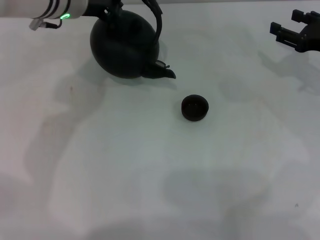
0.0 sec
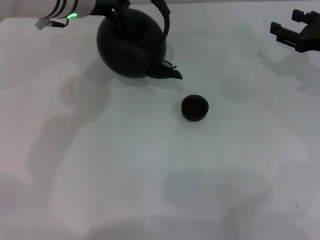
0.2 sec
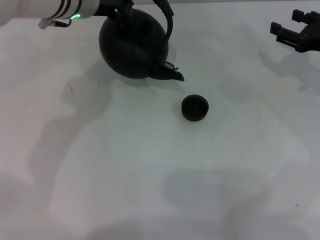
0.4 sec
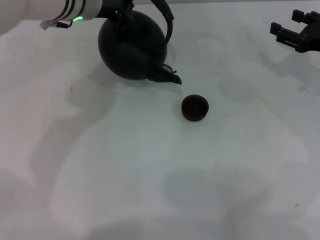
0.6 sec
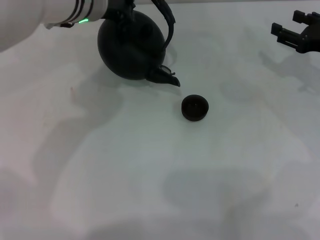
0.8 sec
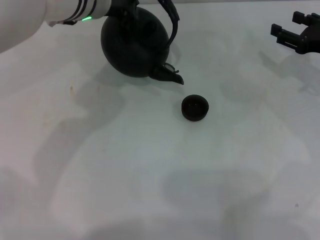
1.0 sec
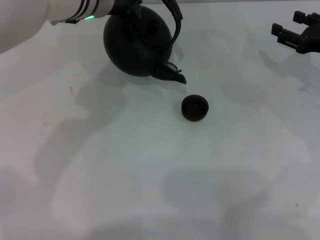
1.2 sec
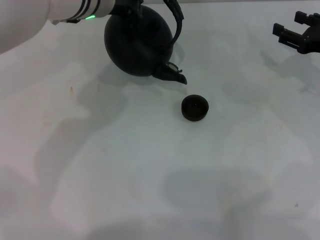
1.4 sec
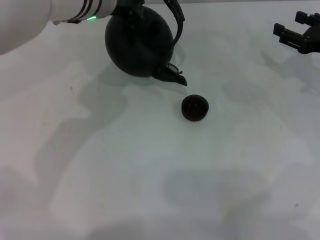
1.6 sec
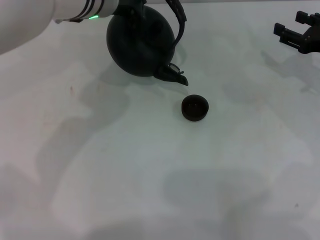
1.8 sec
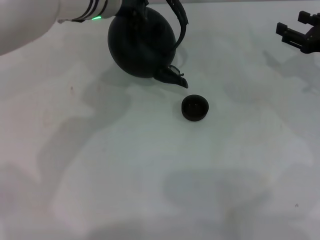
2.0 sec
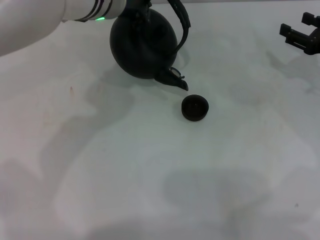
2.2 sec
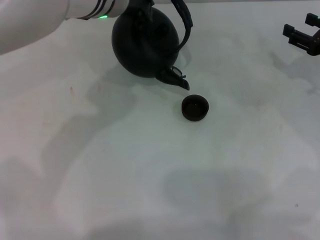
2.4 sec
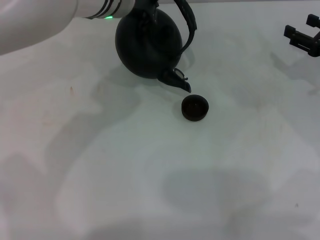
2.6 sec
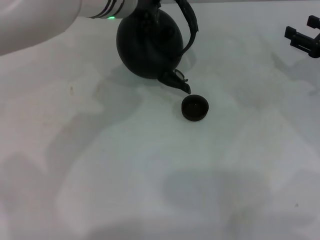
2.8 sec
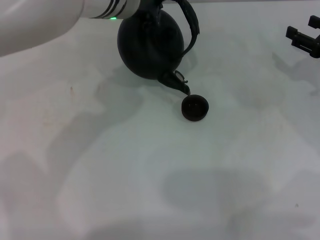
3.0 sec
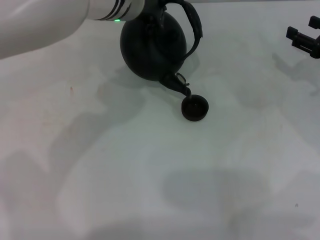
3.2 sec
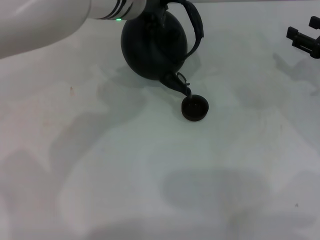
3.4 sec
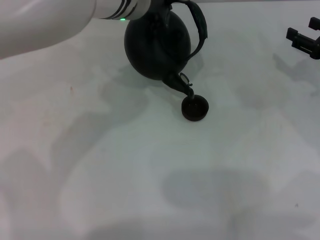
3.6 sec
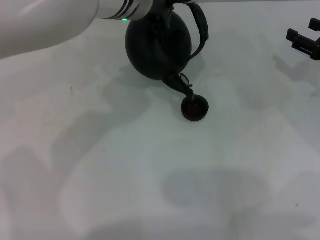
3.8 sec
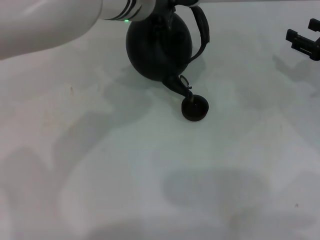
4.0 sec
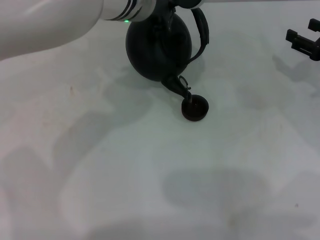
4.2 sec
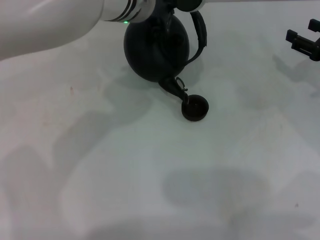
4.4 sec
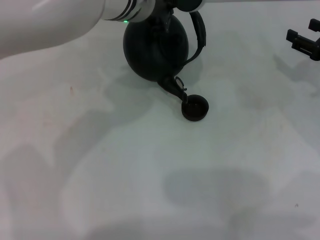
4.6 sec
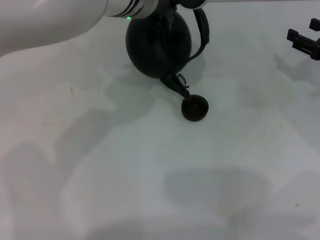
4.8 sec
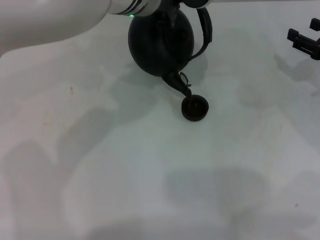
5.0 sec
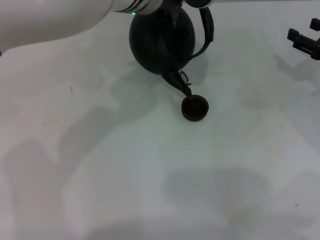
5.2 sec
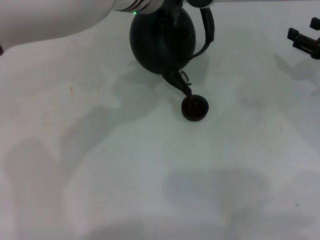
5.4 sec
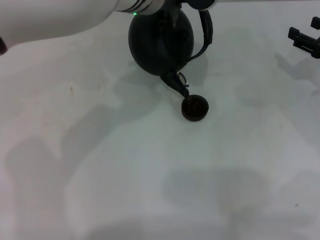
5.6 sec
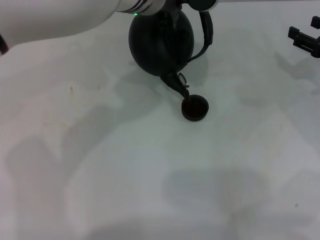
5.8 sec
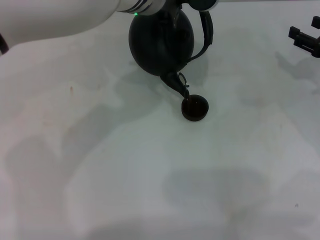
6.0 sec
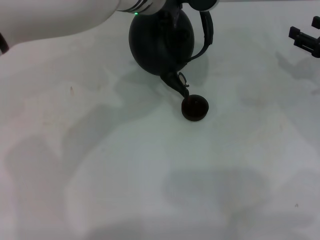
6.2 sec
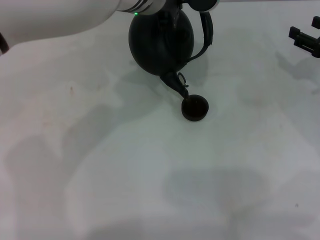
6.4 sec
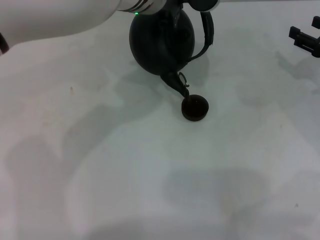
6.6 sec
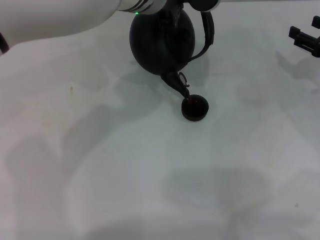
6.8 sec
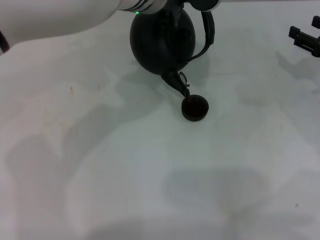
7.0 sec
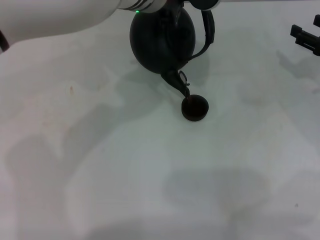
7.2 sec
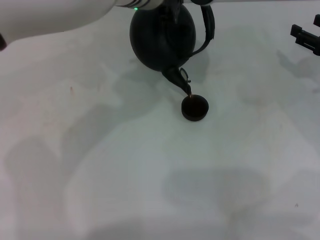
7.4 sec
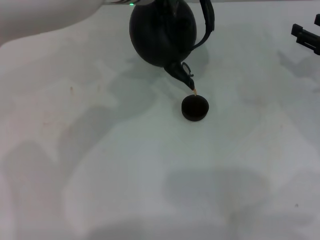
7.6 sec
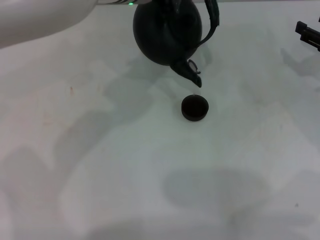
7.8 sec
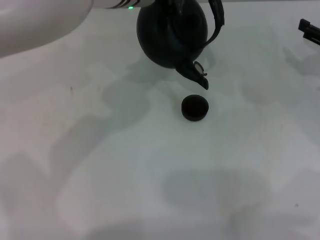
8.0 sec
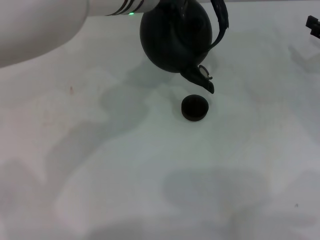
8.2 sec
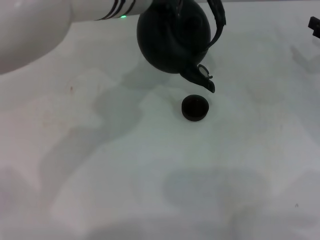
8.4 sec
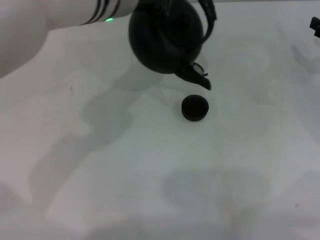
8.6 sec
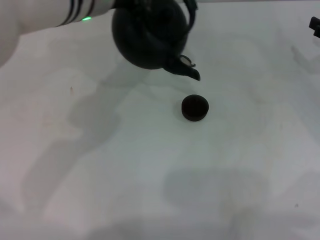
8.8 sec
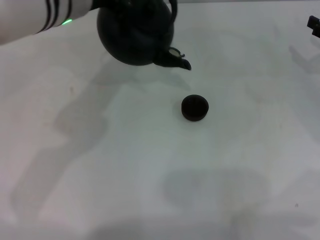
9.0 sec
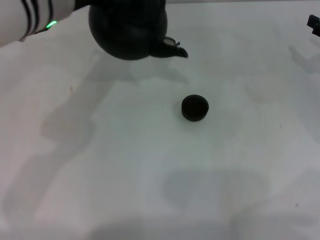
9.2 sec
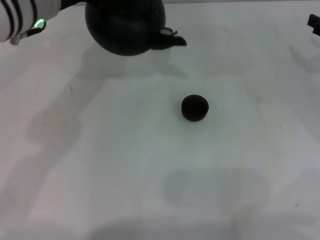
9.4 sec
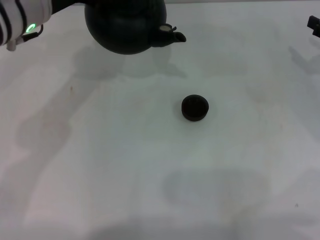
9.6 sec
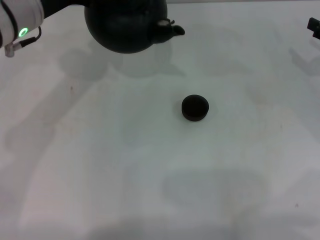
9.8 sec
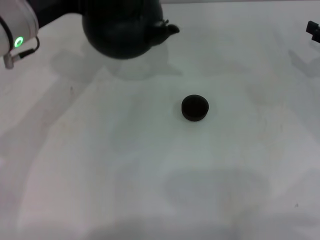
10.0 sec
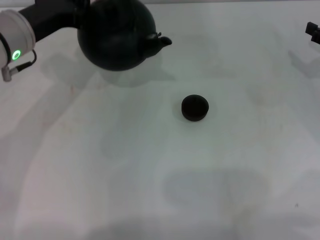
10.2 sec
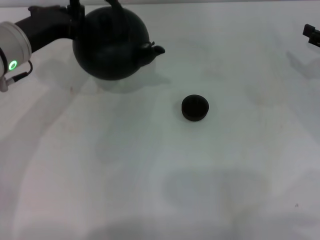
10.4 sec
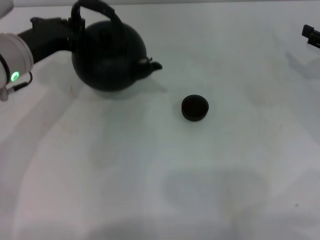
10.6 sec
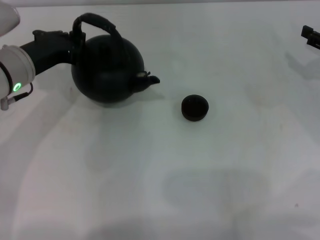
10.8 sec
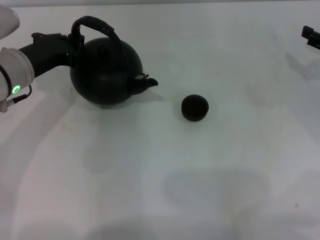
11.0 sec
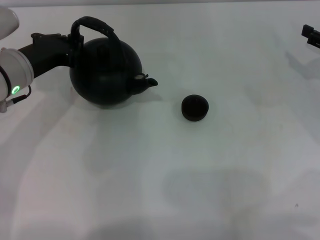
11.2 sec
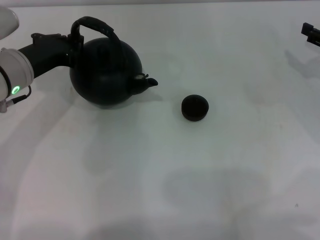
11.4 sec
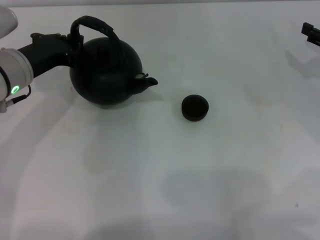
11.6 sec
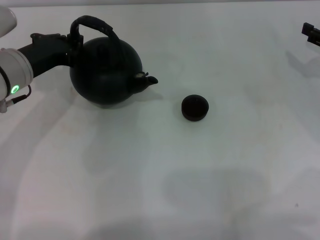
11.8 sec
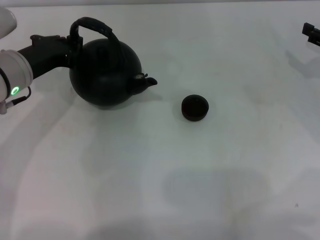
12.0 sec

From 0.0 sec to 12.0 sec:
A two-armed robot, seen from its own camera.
Task of the whole recording: Grasp the handle of the teapot with one hand and pour tea into the teacup.
Step, from 0.0 sec to 8.2 sec: Pour tea into the teacup with the left gripper.
From 0.0 sec to 1.6 sec: There are only small adjustments of the grippers.
From 1.6 sec to 3.0 sec: The grippers stay close to where they were, moving slightly.
From 3.0 sec to 7.6 sec: There are only small adjustments of the grippers.
From 7.6 sec to 9.0 sec: The left gripper shifts approximately 10 cm to the left.
From 9.0 sec to 10.4 sec: The left gripper heads to the left and downward, covering roughly 10 cm.
From 10.4 sec to 12.0 sec: The grippers move only a little.

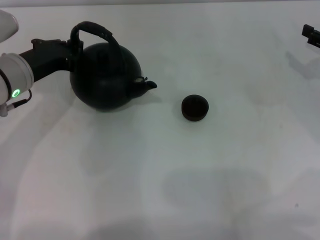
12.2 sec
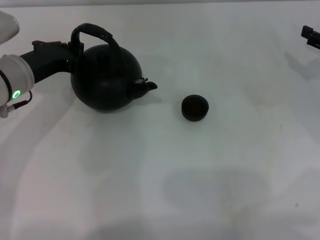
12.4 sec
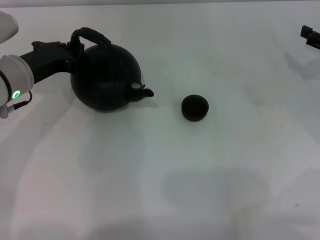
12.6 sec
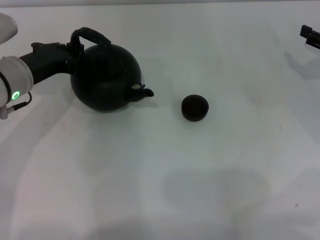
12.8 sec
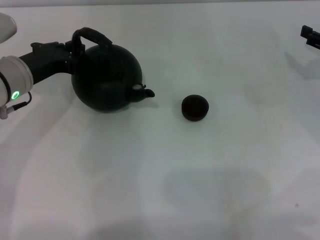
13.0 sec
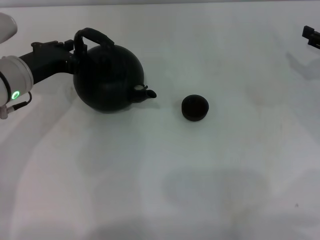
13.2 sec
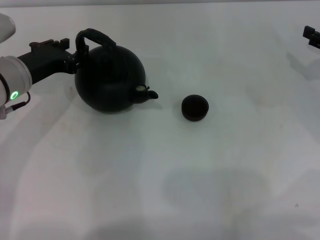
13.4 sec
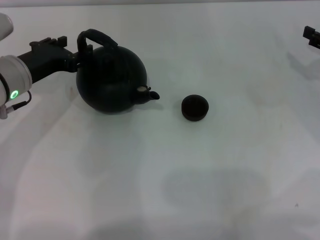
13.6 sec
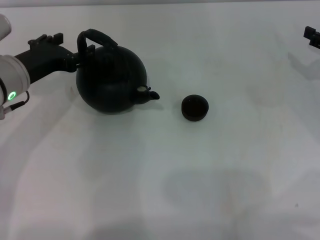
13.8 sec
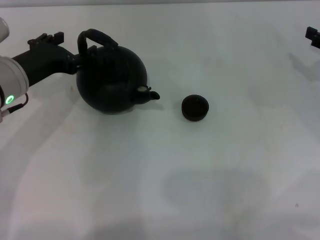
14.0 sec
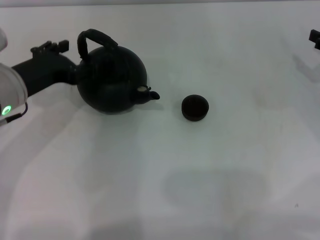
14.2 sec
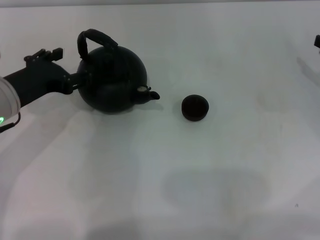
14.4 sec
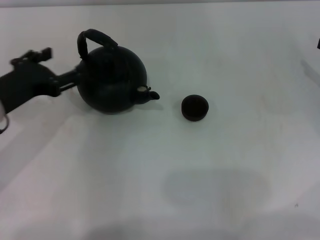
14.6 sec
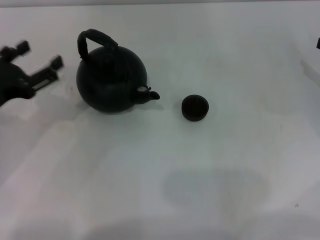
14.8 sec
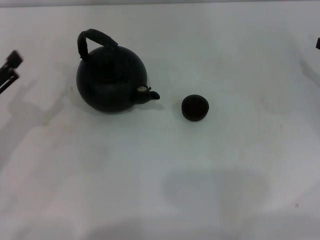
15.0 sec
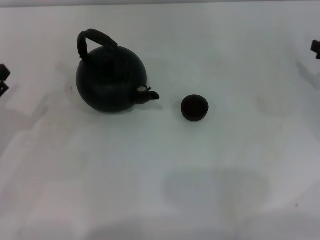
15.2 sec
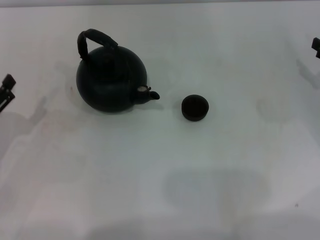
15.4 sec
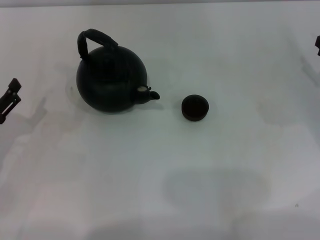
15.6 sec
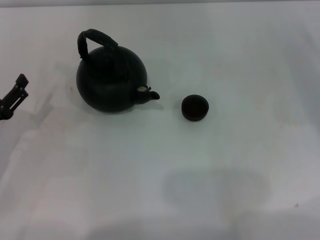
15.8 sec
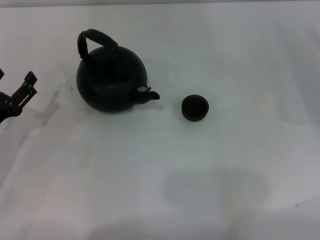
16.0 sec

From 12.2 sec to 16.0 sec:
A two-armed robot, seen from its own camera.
Task of the whole recording: Grasp the handle of the teapot with one hand and pour tea into the teacup.
Step, from 12.2 sec to 14.6 sec: Put down the teapot with the left gripper.
From 12.2 sec to 13.4 sec: Both grippers stay about where they are.
From 13.4 sec to 14.8 sec: The left gripper is displaced backward and to the left by some 10 cm, and opens.
From 14.8 sec to 16.0 sec: The left gripper travels downward by some 10 cm.

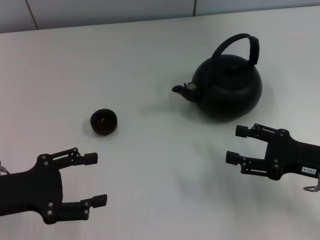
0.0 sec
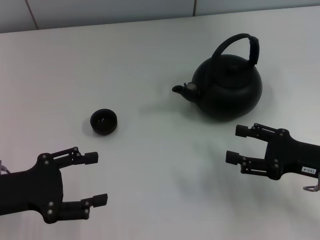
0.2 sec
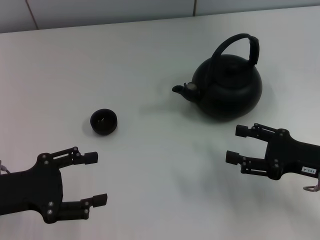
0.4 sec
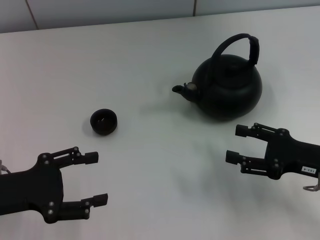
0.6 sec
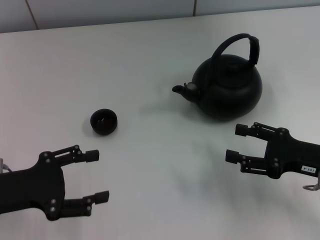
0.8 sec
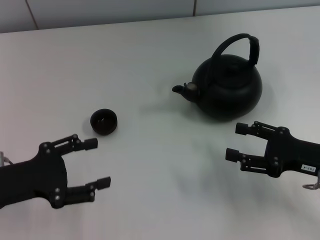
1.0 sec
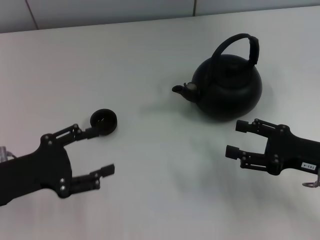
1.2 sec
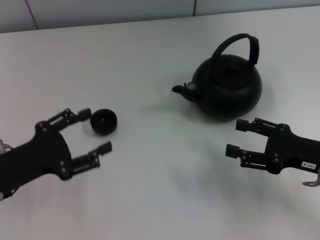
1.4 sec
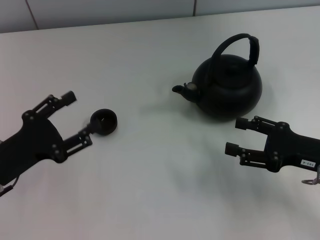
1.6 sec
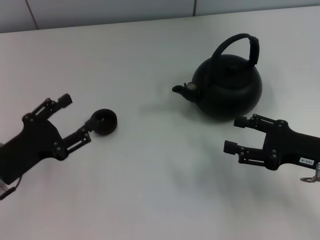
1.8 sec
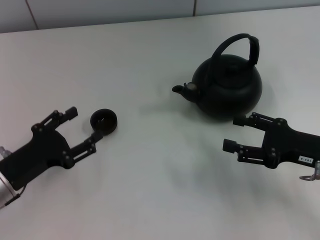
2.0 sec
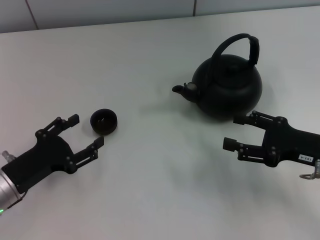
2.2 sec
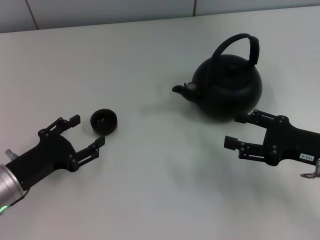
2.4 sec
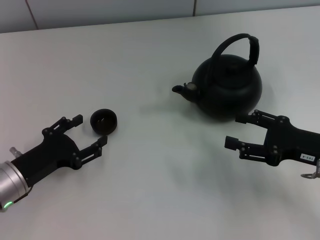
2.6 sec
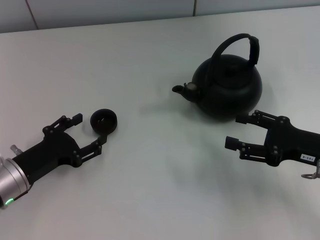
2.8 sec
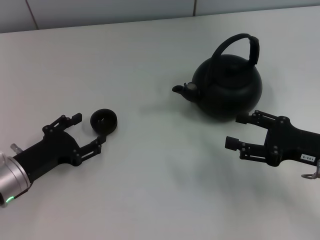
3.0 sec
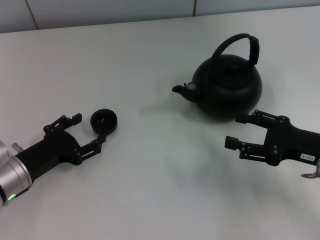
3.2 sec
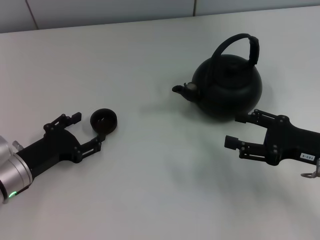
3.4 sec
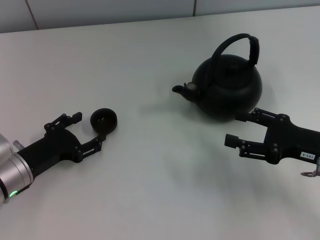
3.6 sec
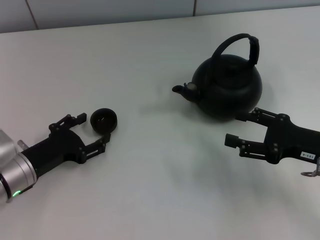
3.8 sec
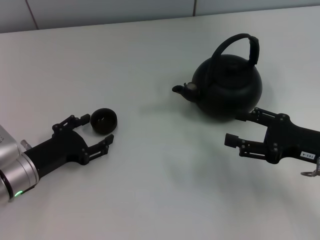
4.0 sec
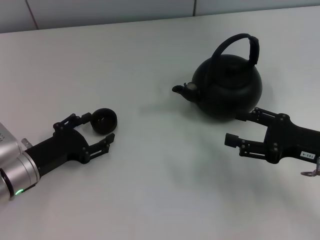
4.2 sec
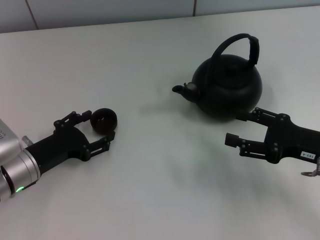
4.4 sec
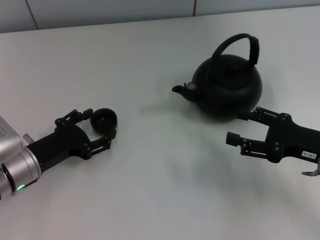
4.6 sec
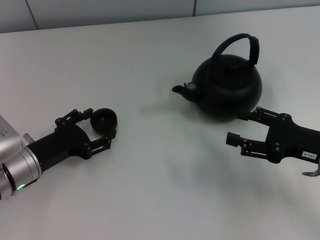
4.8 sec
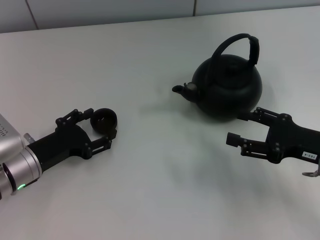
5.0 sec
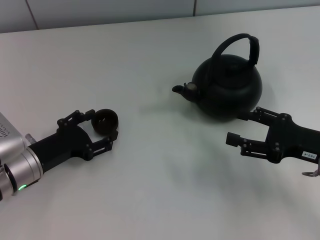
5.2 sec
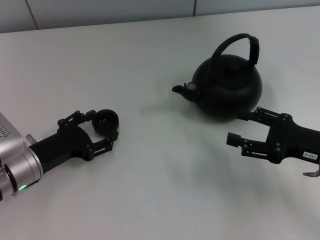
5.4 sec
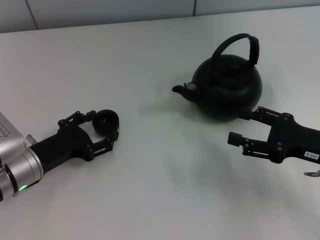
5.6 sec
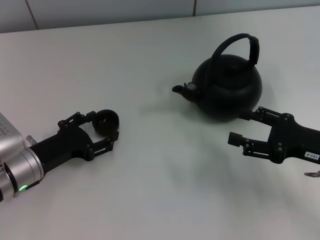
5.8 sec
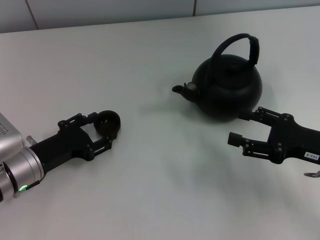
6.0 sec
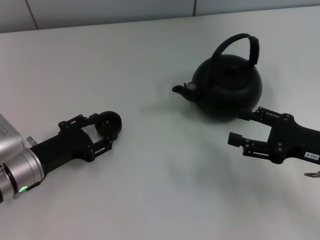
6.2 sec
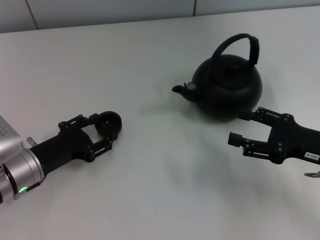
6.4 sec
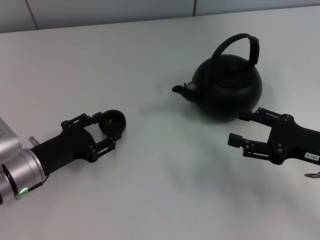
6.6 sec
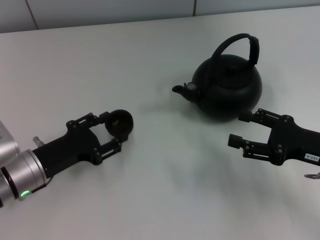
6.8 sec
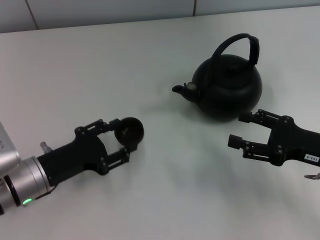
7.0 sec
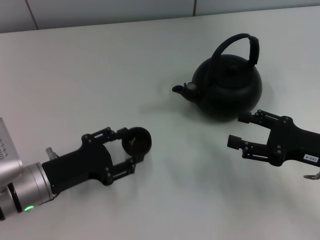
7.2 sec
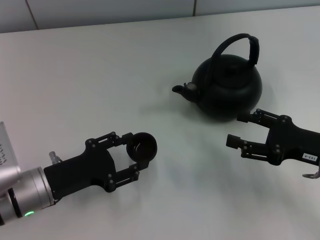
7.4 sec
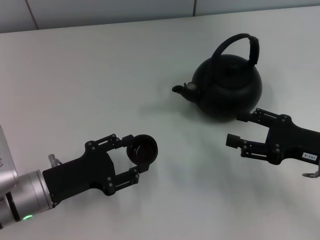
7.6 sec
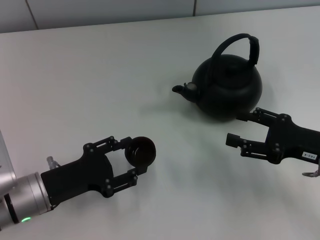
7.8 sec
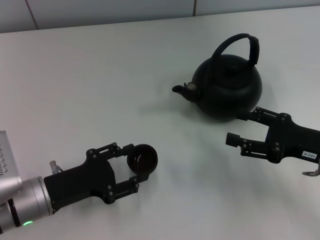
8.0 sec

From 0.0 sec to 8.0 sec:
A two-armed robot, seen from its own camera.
Task of the whole recording: Grasp the handle of the teapot with one hand and pour tea into the teacup.
Step, from 0.0 sec to 7.6 sec: Pick up the teacup with the left gripper.
From 1.6 sec to 3.2 sec: The left gripper moves about 5 cm.
From 3.2 sec to 4.8 sec: The grippers stay close to where they were, moving slightly.
From 4.8 sec to 6.4 sec: The left gripper closes.
From 6.4 sec to 8.0 sec: There are only small adjustments of the grippers.
